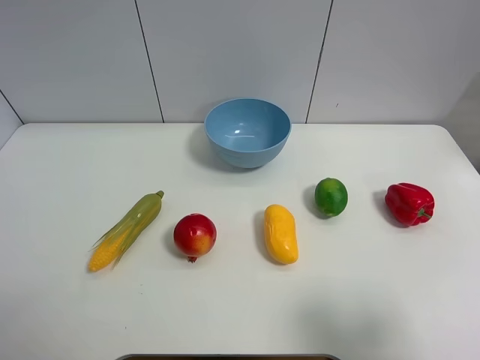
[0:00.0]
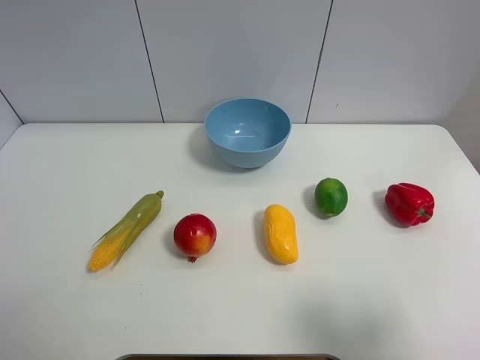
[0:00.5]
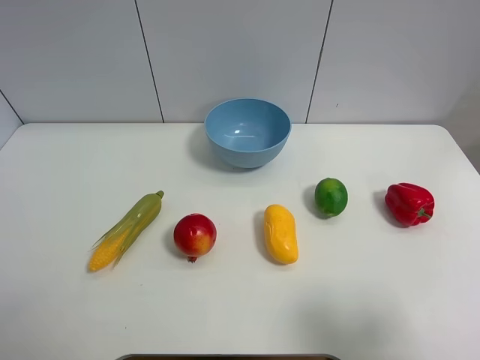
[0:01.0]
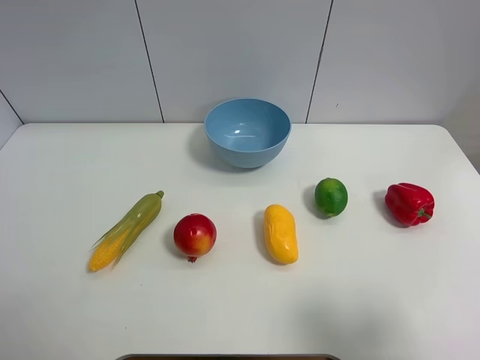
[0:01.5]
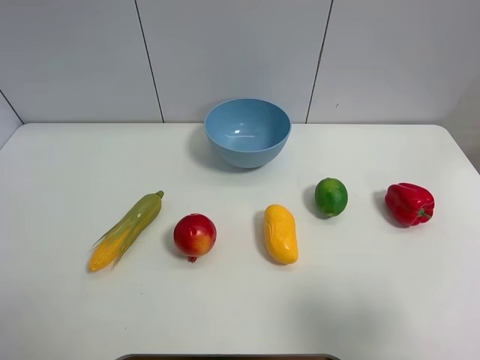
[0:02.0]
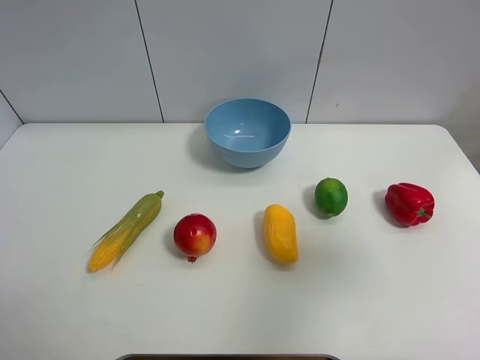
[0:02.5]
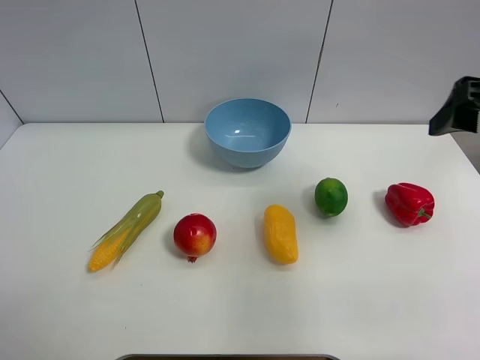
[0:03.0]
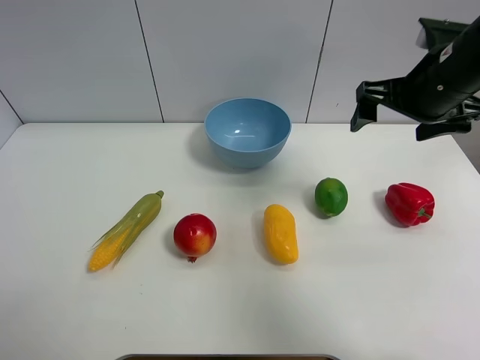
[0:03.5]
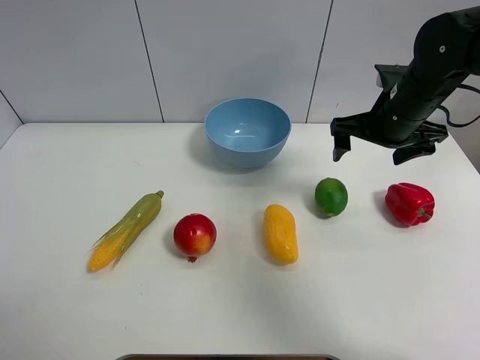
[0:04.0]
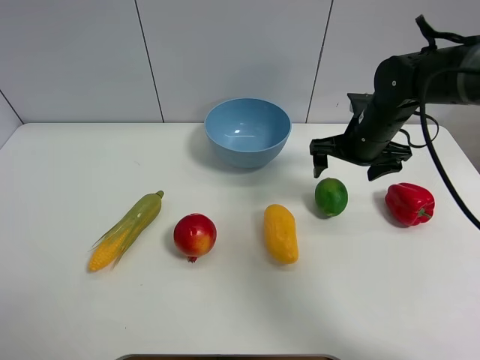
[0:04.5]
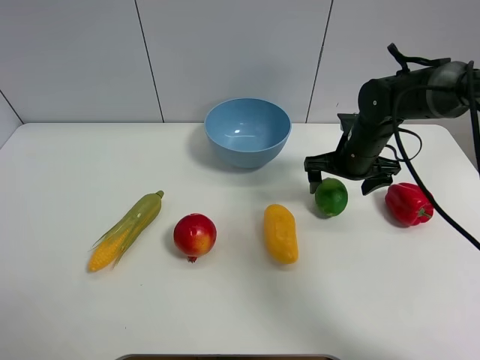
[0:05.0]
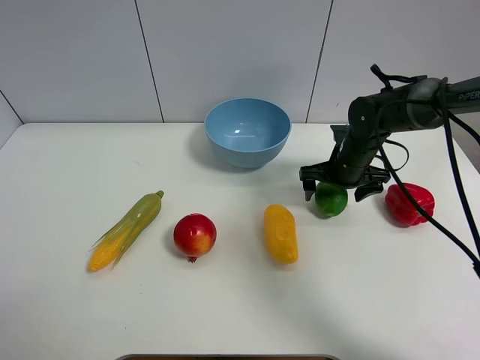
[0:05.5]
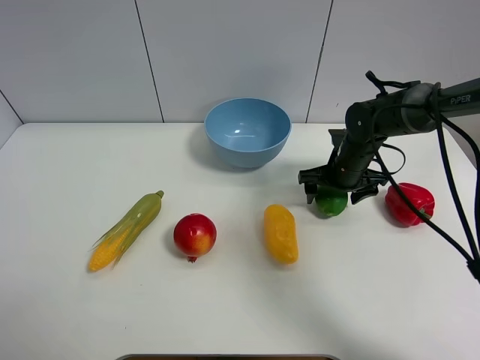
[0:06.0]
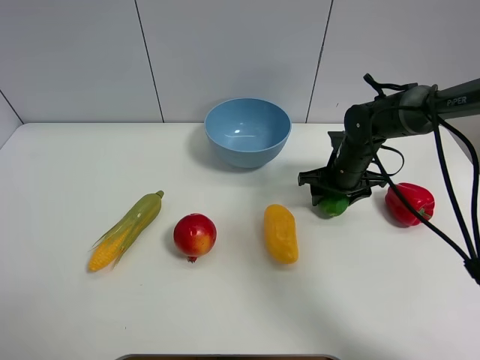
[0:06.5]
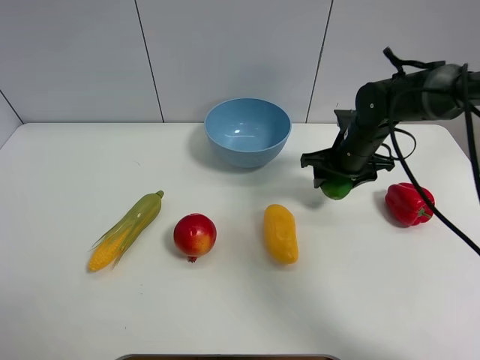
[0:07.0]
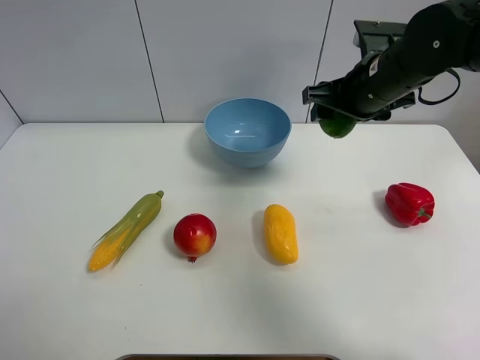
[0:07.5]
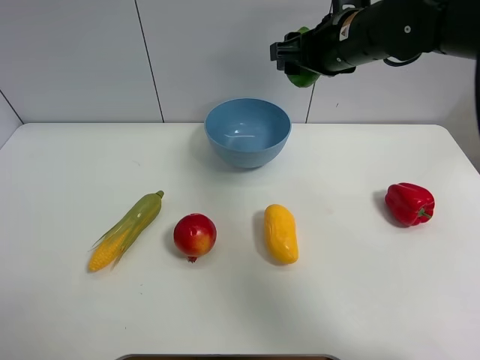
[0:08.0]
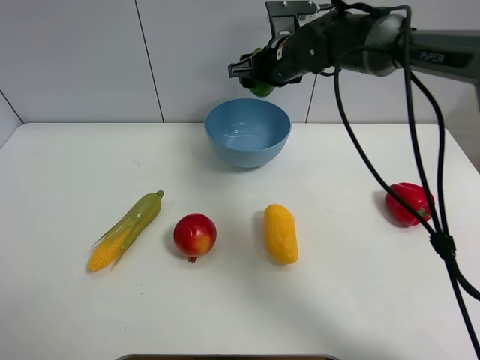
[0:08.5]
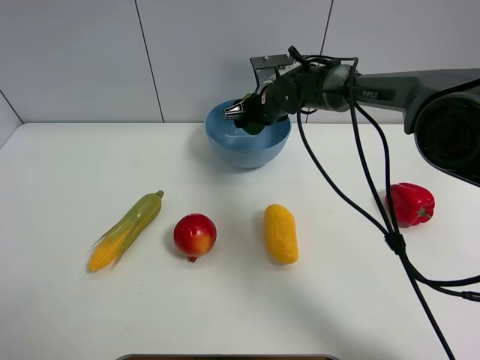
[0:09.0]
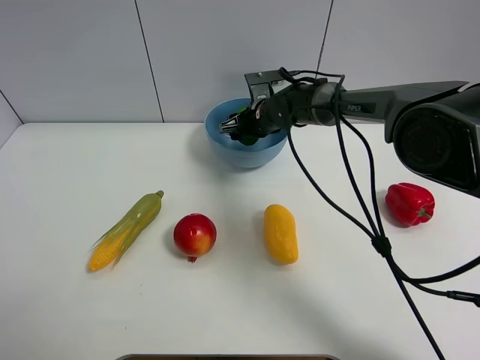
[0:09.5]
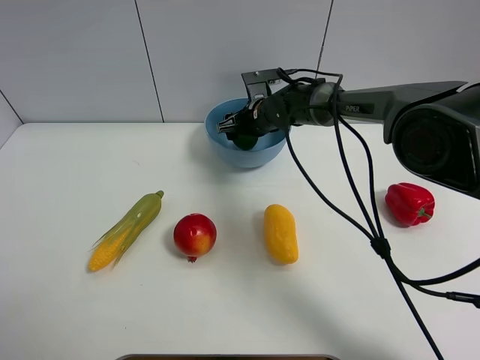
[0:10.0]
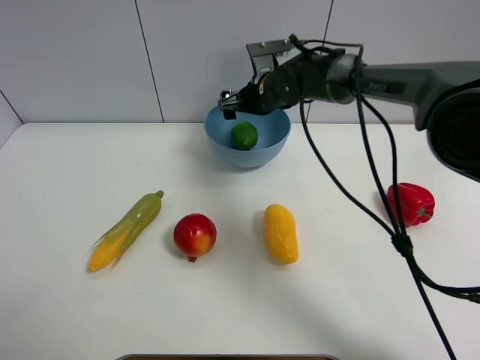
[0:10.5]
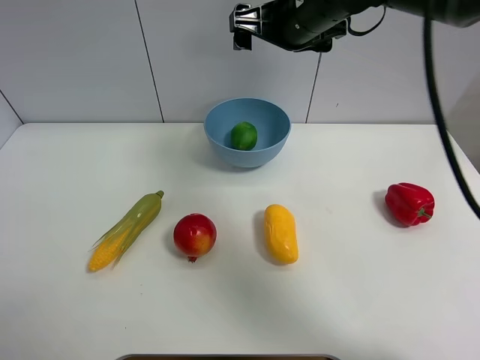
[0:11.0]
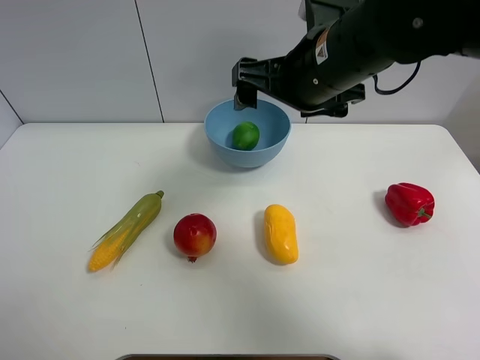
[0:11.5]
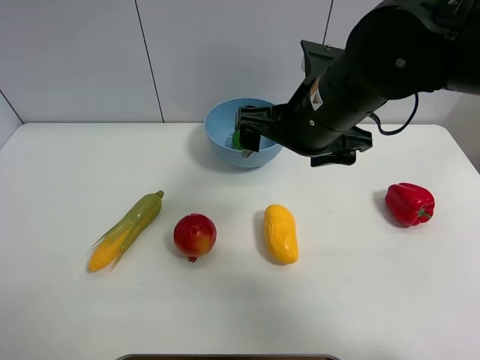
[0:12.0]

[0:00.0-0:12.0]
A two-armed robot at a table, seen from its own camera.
Task of the whole recording: Put the three fruits on the table into a bowl.
Step, 0:00.0 to 0:06.0: Grasp the green lemon with right gripper.
Step, 0:06.5 to 0:10.0: Place the green lemon in the blue bowl with right gripper.
0:02.0 to 0:04.0: The right gripper is displaced forward by roughly 30 cm.
0:04.0 to 0:06.0: The right gripper is displaced downward by roughly 15 cm, and closes its fingers.
0:06.0 to 0:08.0: The right gripper shifts approximately 20 cm upward, and closes up.
0:08.0 to 0:10.0: The right gripper is displaced downward, forward and to the left by roughly 20 cm.
0:10.0 to 0:12.0: The right gripper travels backward and upward by about 25 cm, and opens up.

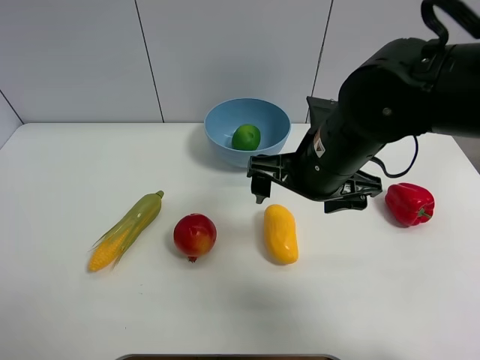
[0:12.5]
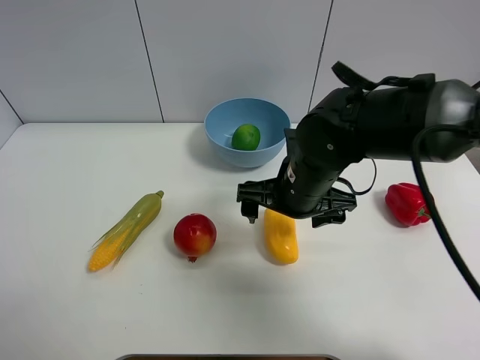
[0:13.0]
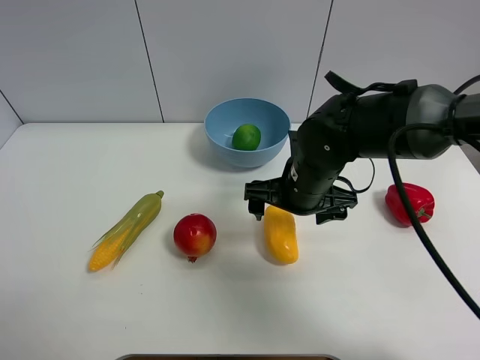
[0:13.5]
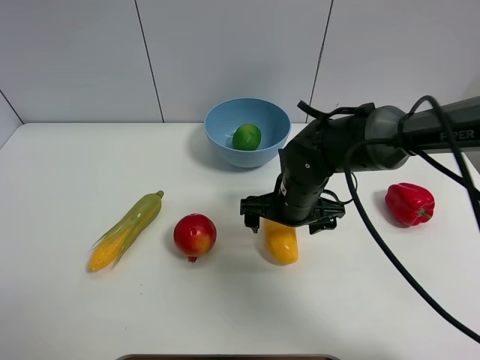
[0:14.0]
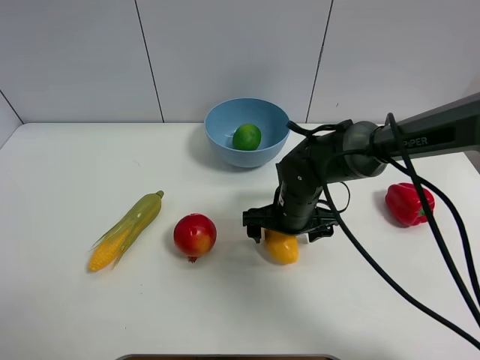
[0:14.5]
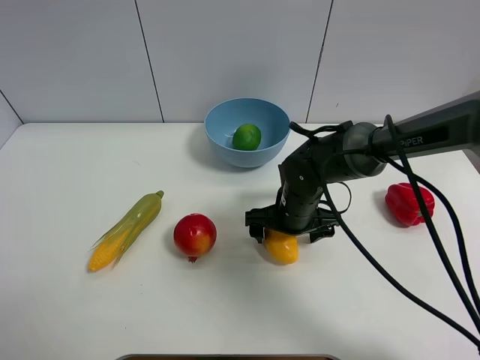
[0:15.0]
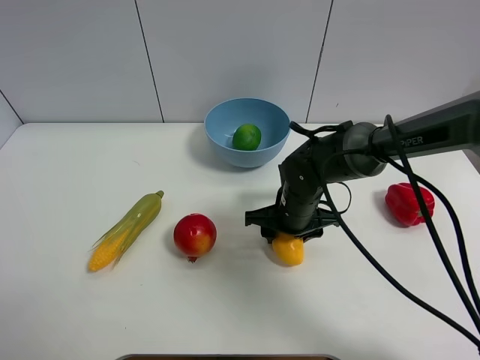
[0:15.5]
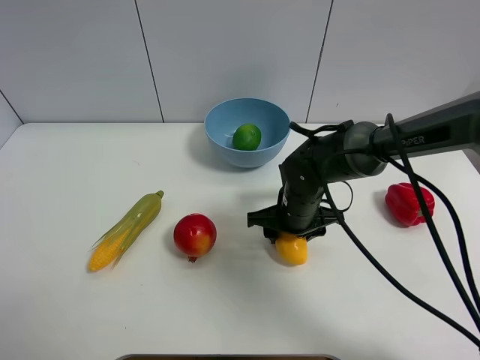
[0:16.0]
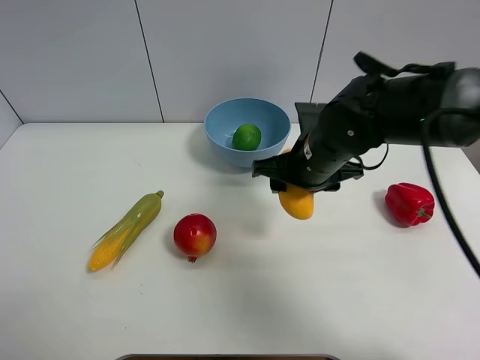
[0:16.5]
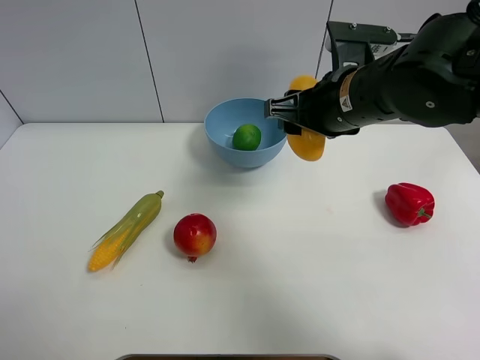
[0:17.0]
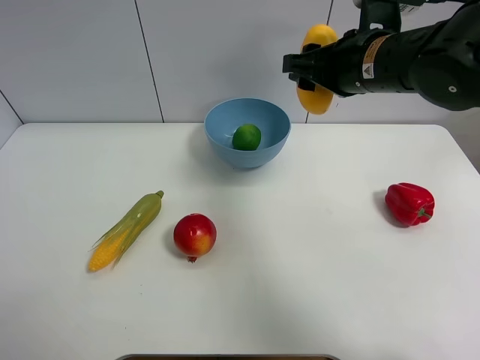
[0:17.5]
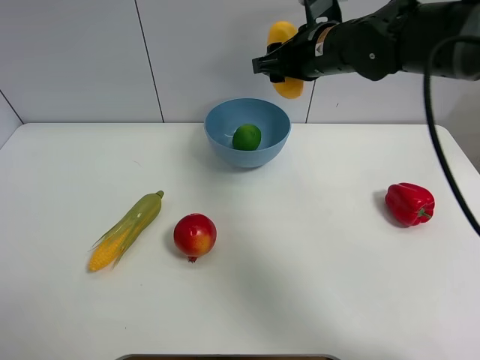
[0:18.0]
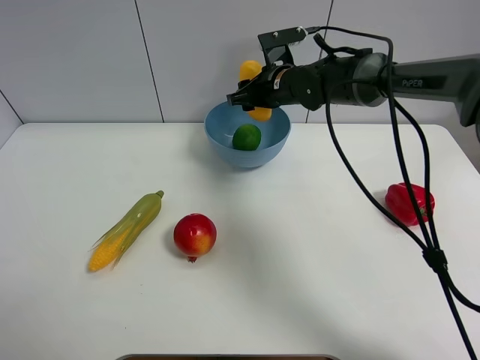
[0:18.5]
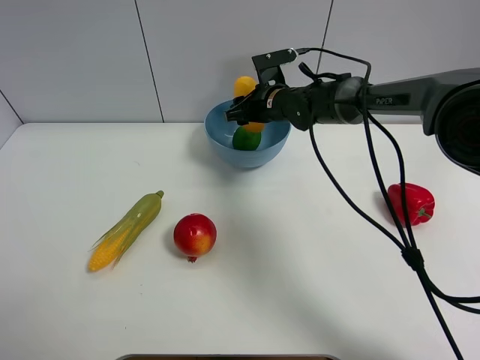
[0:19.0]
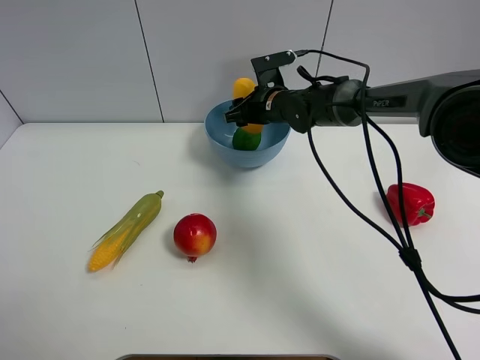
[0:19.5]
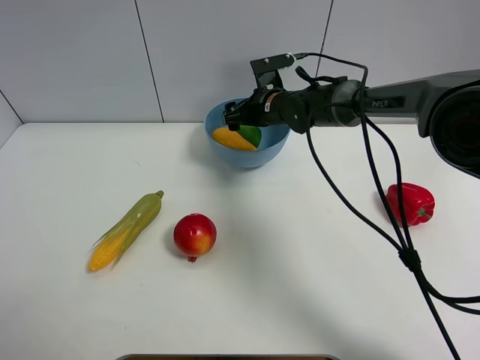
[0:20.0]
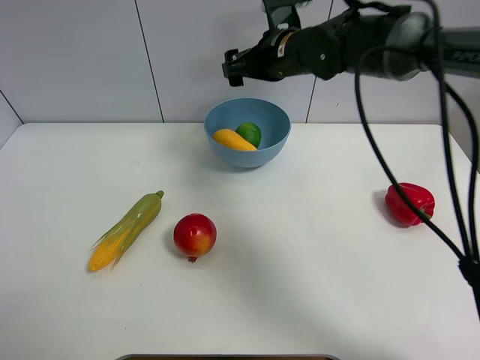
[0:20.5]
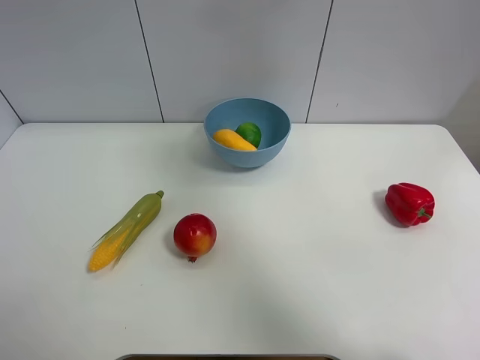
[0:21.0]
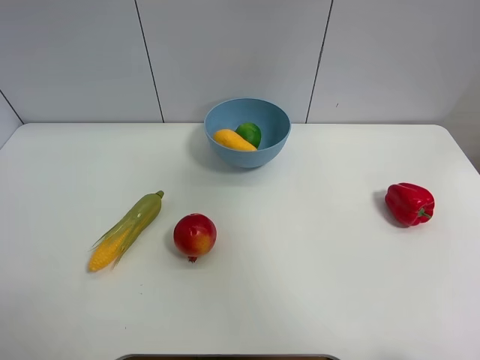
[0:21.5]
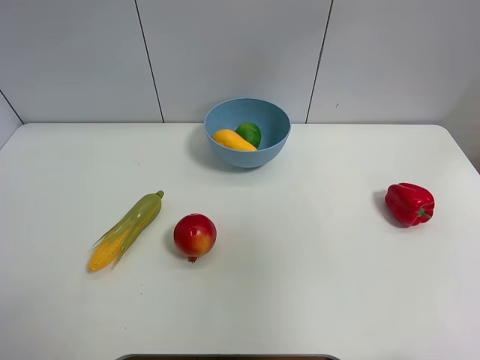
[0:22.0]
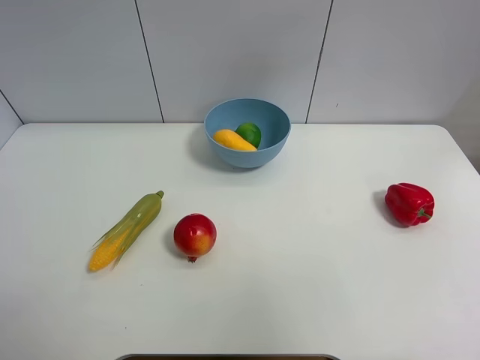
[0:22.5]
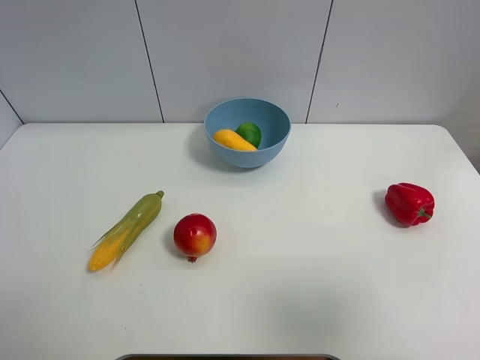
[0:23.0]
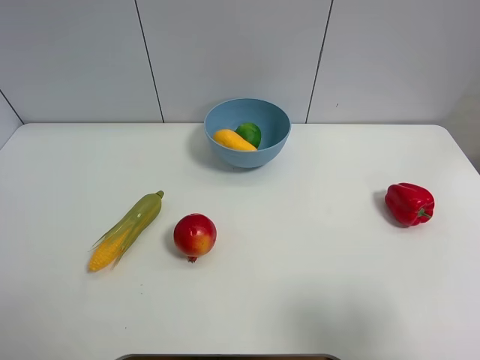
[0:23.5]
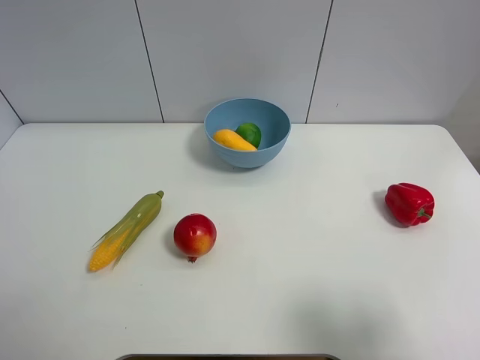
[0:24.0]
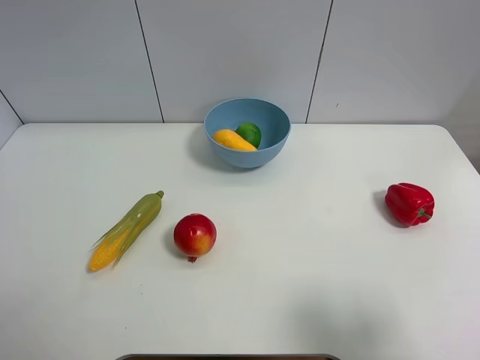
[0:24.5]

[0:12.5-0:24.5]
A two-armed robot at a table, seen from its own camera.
Task of the whole recording: Put the three fruits on the table into a bowl.
Step, 0:12.5 to 0:15.0: Grasp the mango with right gripper.
Step, 0:15.5 to 0:20.0: Place the mango in the blue bowl with right gripper.
0:12.5 to 0:14.5: The right gripper goes some 15 cm downward.
0:14.5 to 0:16.5: The right gripper heads upward, covering roughly 10 cm, and closes its fingers.
0:16.5 to 0:18.5: The right gripper heads forward, covering roughly 15 cm.
0:18.5 to 0:20.5: The right gripper moves upward, about 10 cm, and opens its fingers.
0:20.5 to 0:22.5: The right gripper moves backward, to the right and upward, about 60 cm.
0:22.5 to 0:24.5: The right gripper is displaced downward by roughly 20 cm.

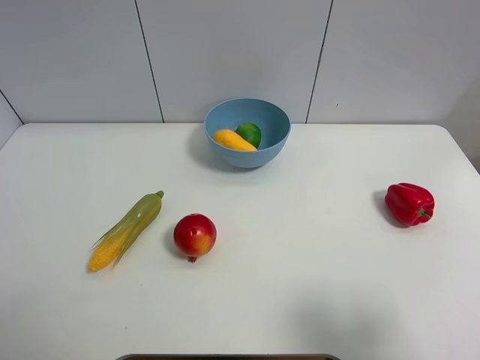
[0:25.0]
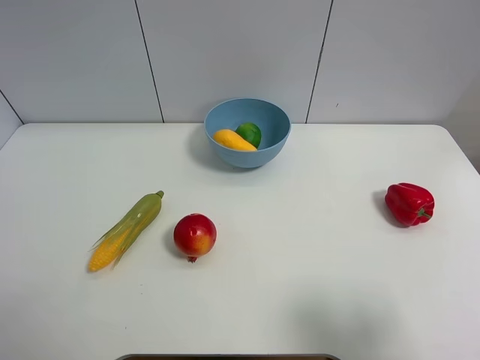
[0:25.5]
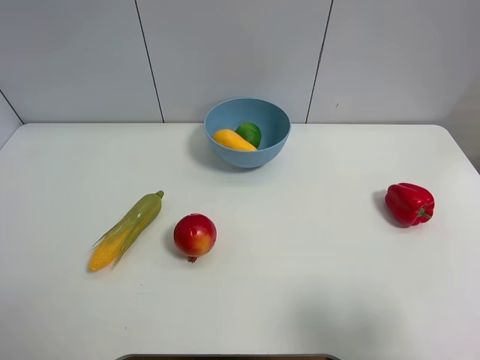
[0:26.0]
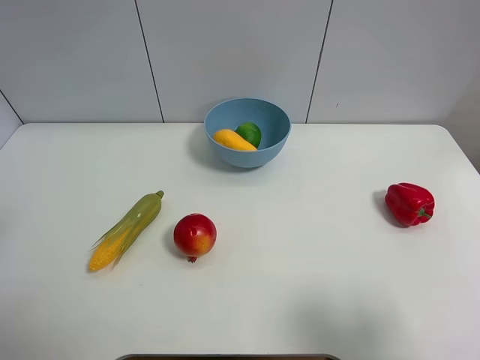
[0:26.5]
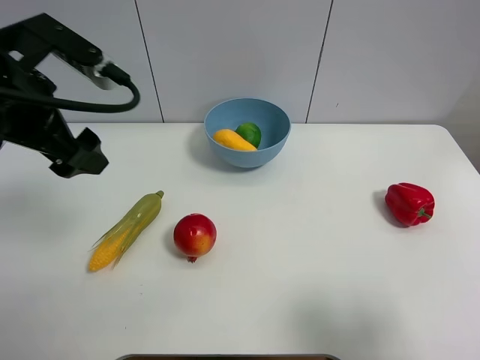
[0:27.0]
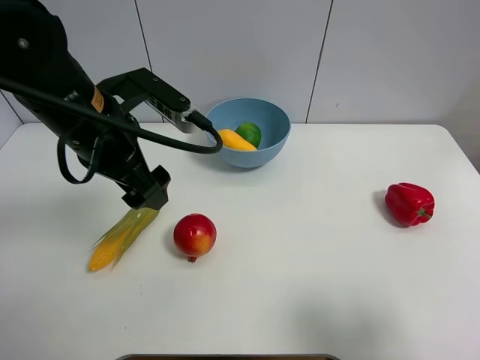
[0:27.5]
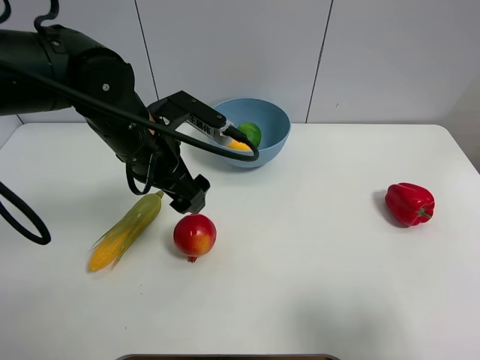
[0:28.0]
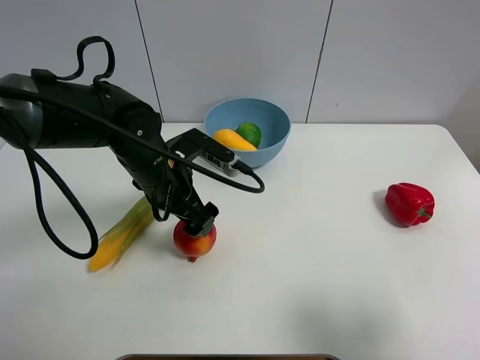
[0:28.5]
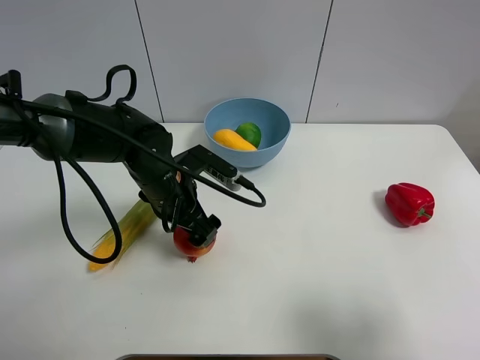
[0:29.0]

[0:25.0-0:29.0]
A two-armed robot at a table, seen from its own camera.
Task of the whole recording: Put the three fruits on the table into a bowl.
0:25.0 to 0:27.0: The left gripper travels forward and to the right by roughly 25 cm.
0:27.0 to 0:29.0: The left gripper shifts roughly 20 cm downward and to the right.
